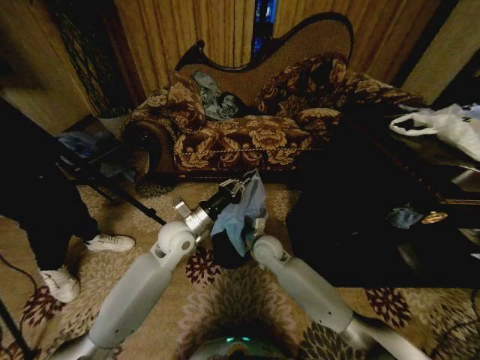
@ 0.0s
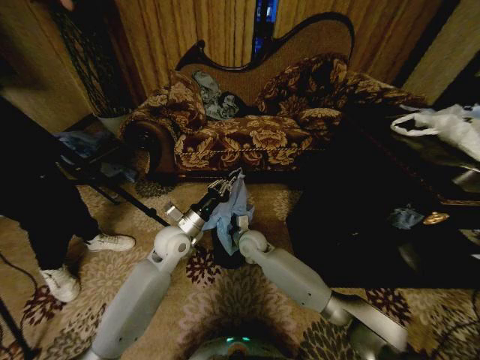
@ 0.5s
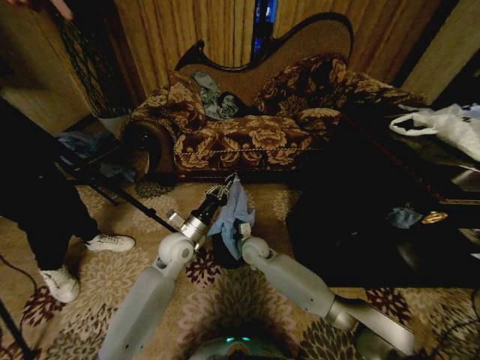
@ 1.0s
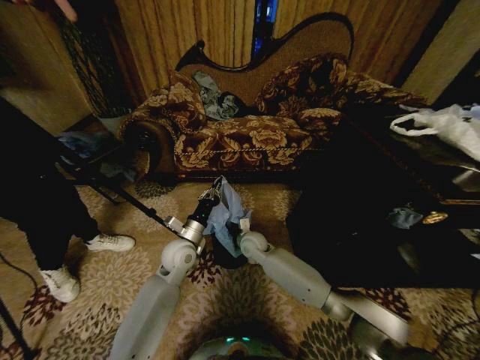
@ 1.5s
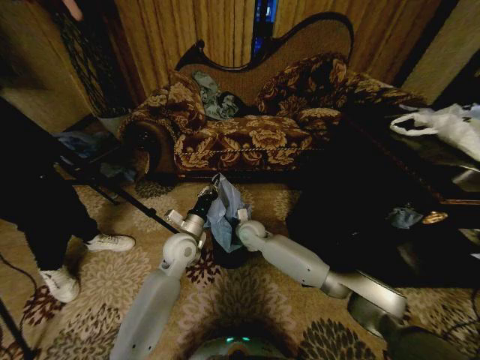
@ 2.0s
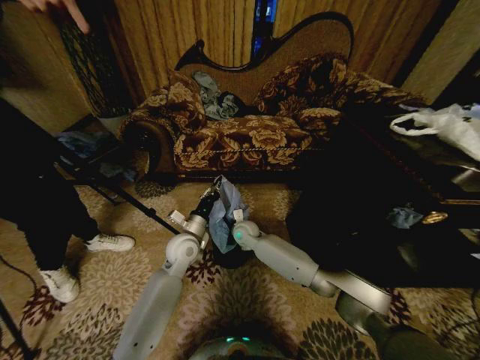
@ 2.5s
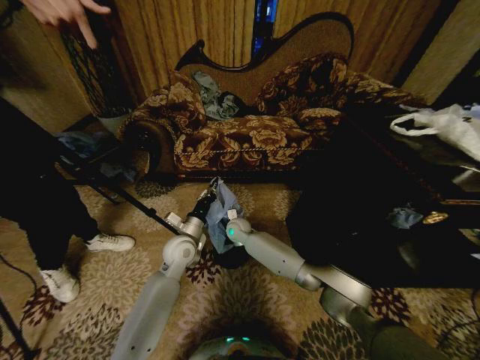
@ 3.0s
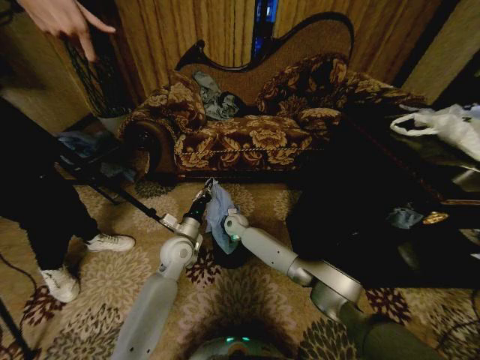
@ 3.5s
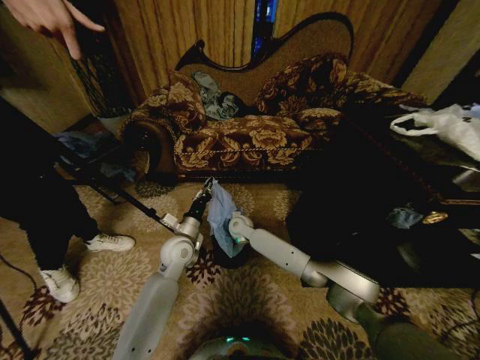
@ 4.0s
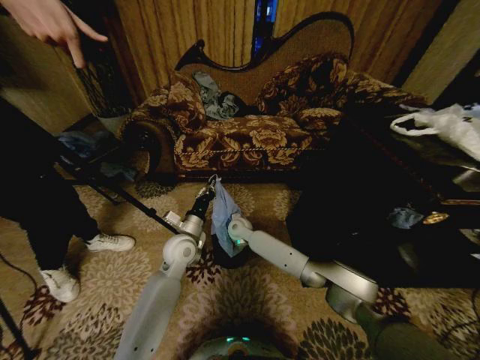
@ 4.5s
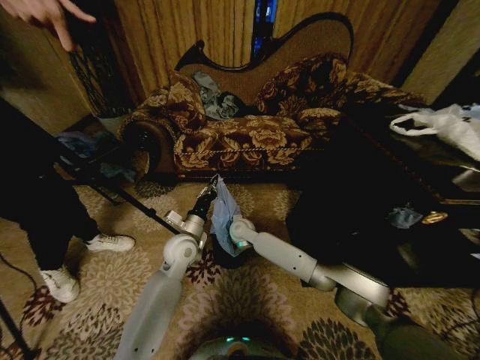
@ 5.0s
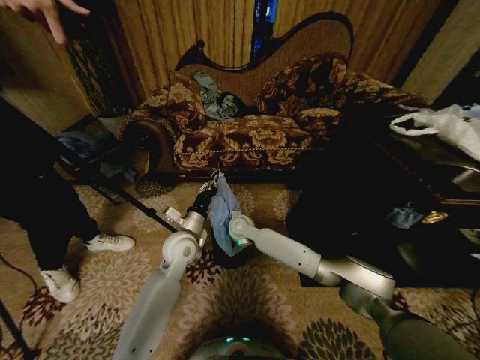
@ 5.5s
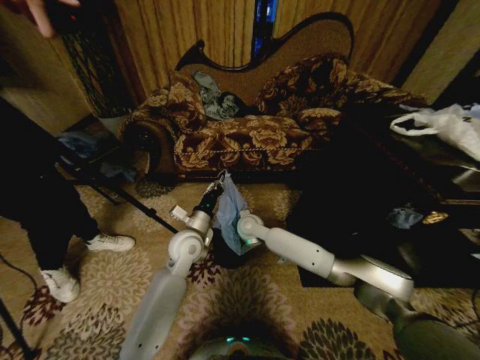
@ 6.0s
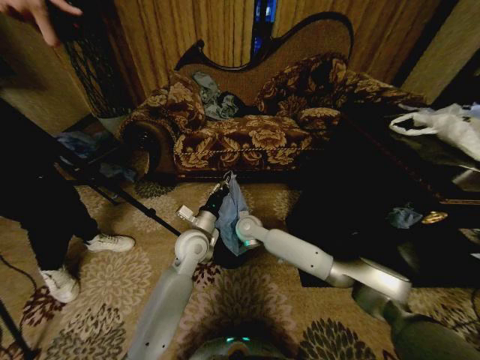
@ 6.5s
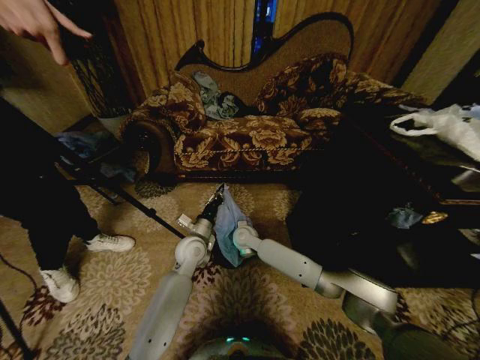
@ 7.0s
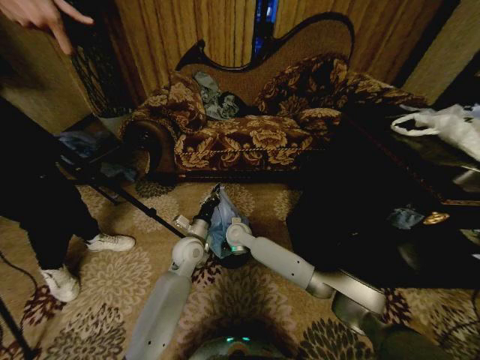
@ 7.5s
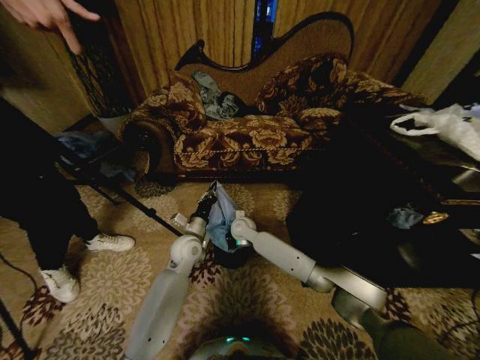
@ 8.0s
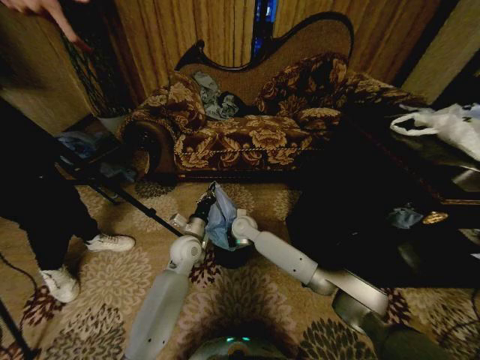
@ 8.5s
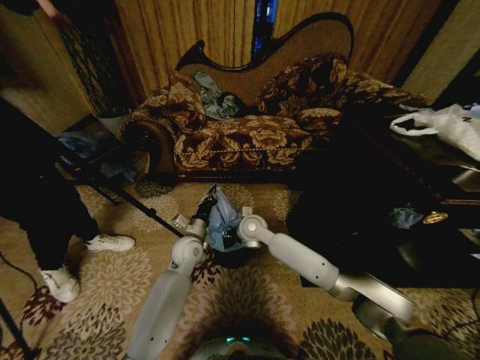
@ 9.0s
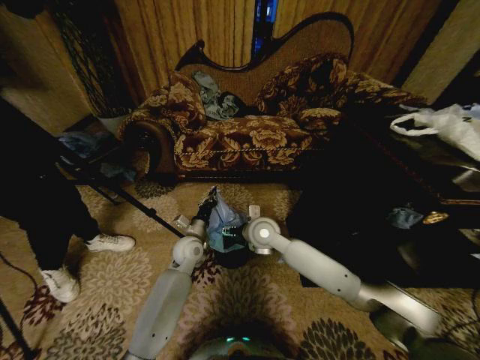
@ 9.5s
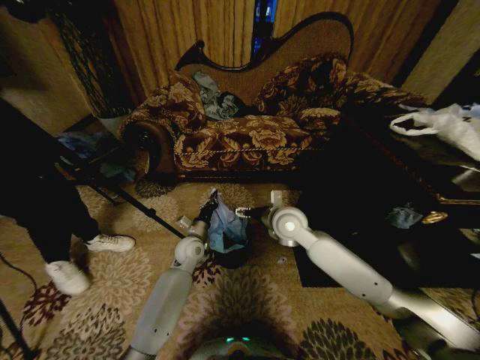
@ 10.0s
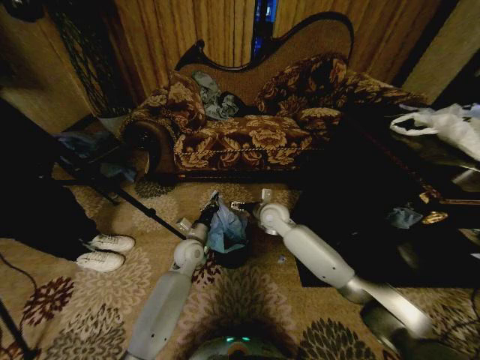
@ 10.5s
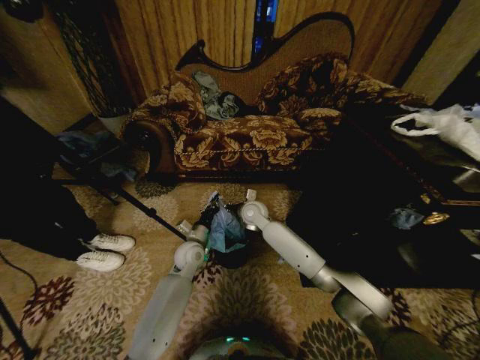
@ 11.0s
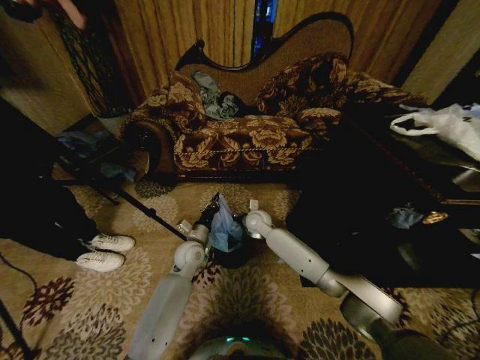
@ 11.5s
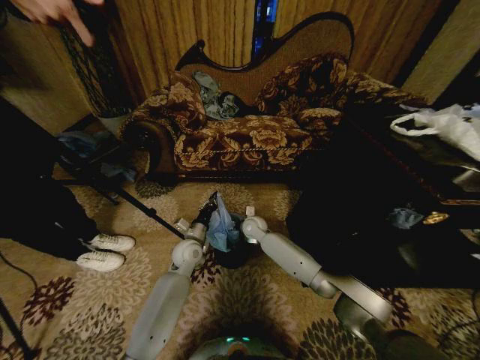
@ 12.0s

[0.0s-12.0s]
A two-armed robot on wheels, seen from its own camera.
Task of the whole recording: Place a garbage bag over the trash bin.
0.0s to 2.0s: The left gripper shifts some 5 cm downward. The right gripper travels forward by roughly 5 cm.
4.0s to 6.0s: The right gripper ends up about 5 cm from where it was.
6.0s to 8.0s: The right gripper ends up some 5 cm from where it was. The left gripper moves downward, approximately 5 cm.
8.0s to 10.0s: The right gripper is displaced upward, to the right and backward by approximately 20 cm, and opens its fingers.
10.0s to 12.0s: The right gripper goes roughly 20 cm downward, forward and to the left, and closes its fingers.

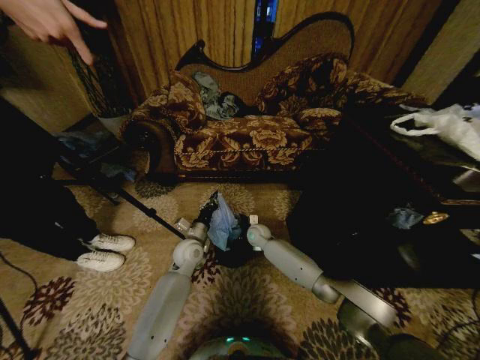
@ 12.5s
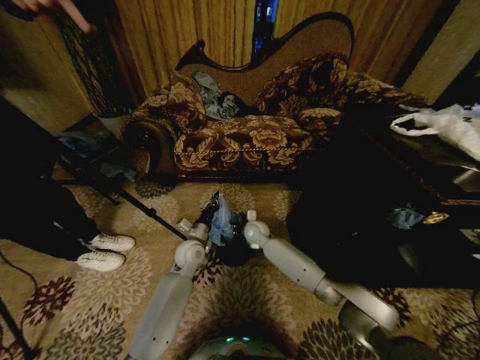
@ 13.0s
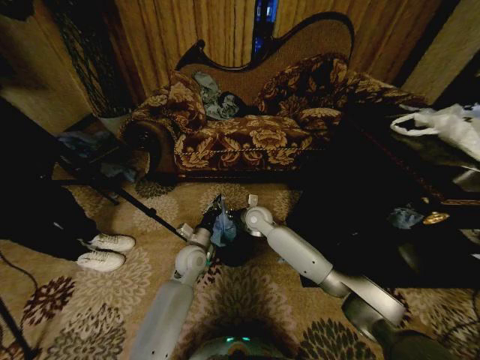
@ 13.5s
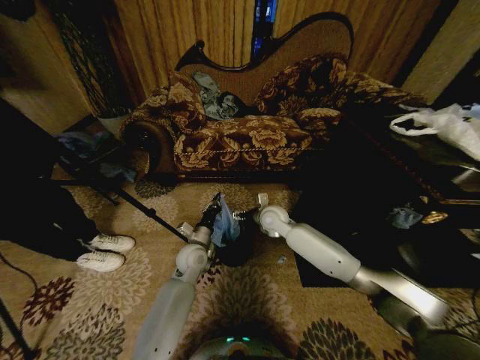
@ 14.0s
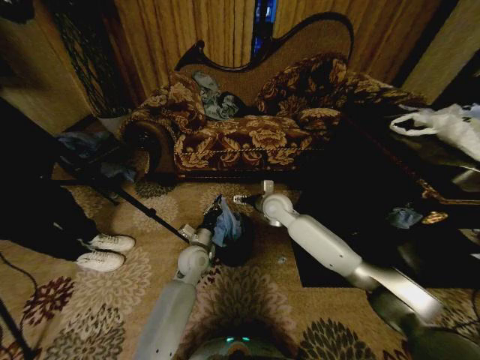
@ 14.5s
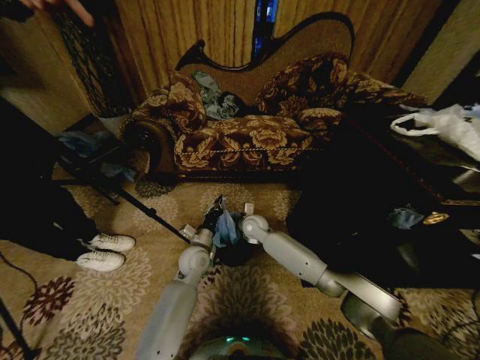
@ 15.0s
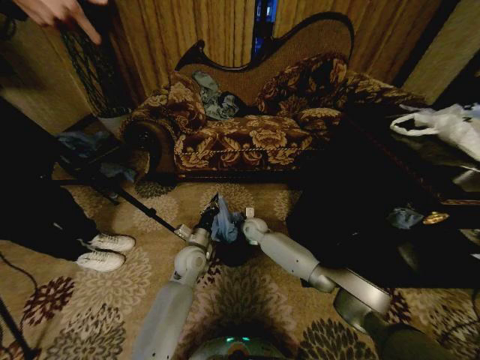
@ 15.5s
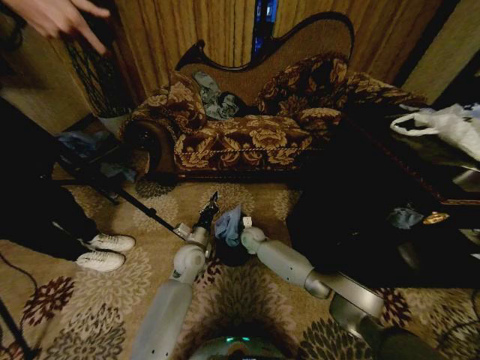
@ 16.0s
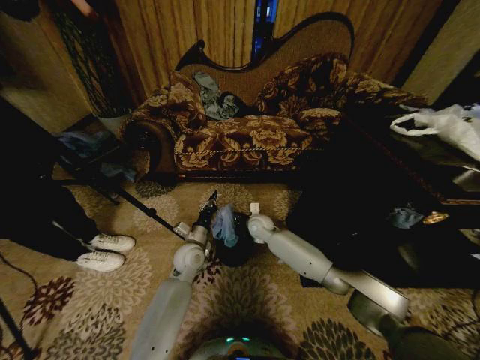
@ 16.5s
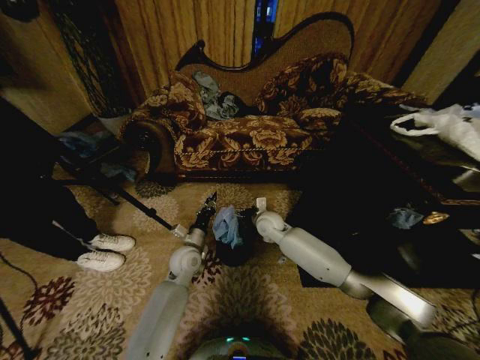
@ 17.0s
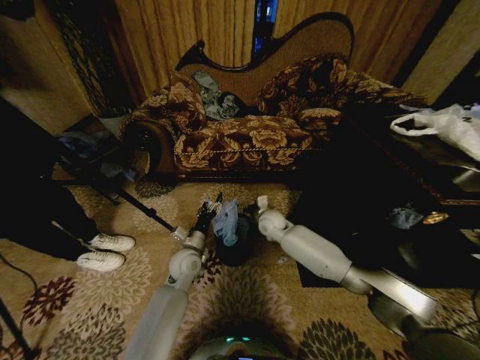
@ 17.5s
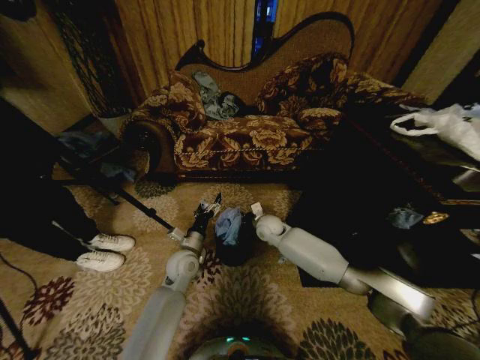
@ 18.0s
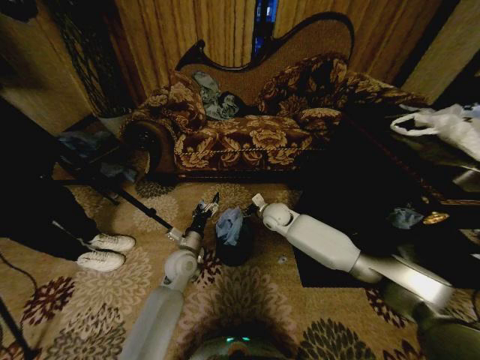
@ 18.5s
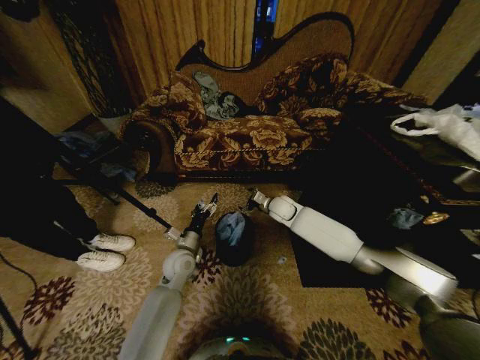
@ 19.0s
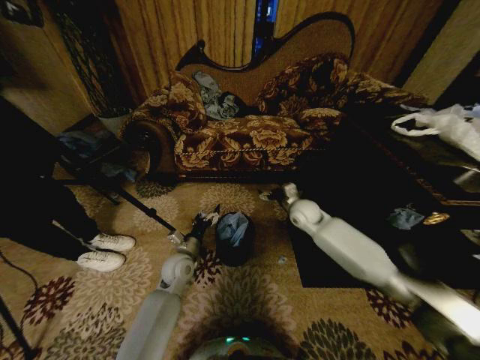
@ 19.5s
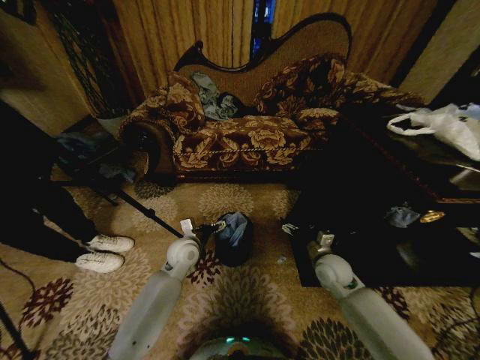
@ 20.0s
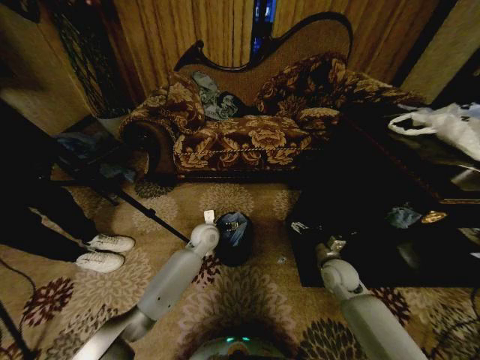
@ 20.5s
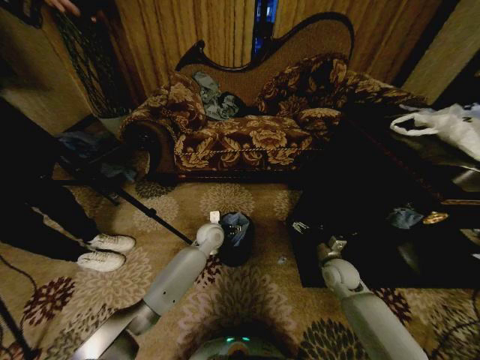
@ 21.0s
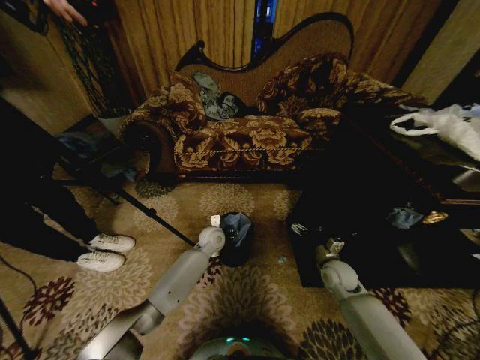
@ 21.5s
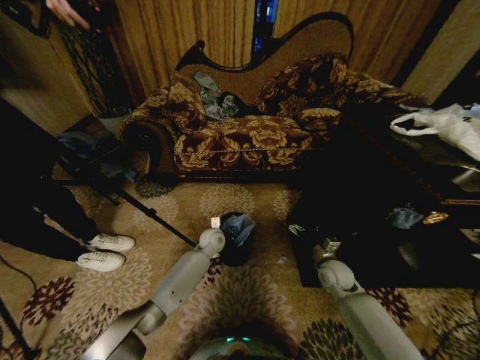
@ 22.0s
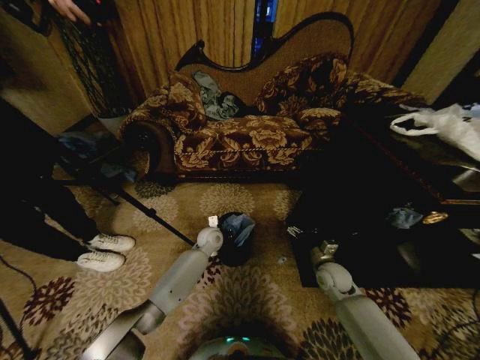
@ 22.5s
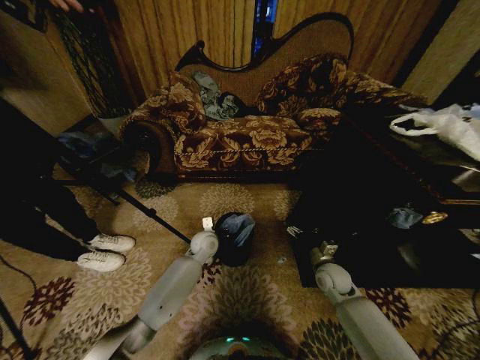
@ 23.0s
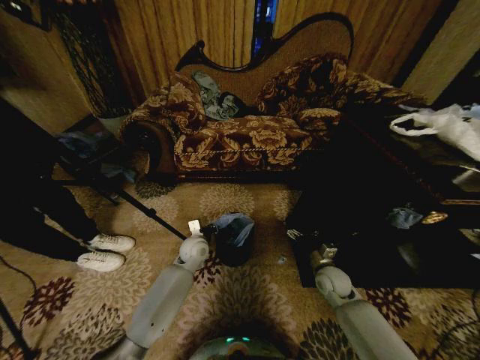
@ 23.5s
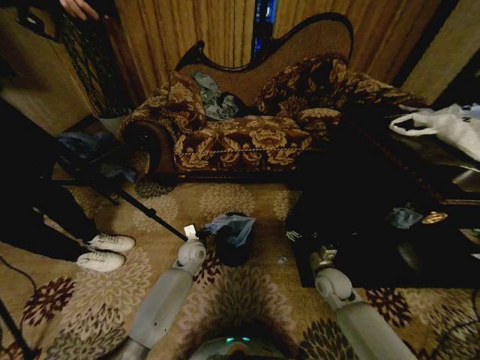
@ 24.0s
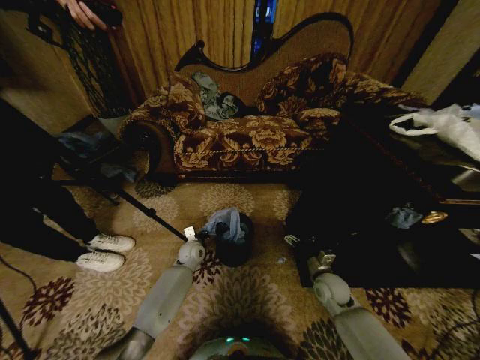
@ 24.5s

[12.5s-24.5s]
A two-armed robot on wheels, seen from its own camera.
Task of the whole recording: Place a garbage bag over the trash bin.
12.5s to 14.5s: The right gripper shifts roughly 15 cm upward, and opens.
14.5s to 16.5s: The right gripper shifts some 10 cm downward, and closes its fingers.
16.5s to 18.5s: The left gripper opens its fingers. Meanwhile the right gripper shifts about 5 cm upward, and opens up.
18.5s to 20.5s: The left gripper heads forward and to the right, covering approximately 10 cm, while the right gripper moves to the right, backward and downward, roughly 25 cm.
20.5s to 22.5s: The left gripper is displaced downward by about 5 cm, and closes up.
22.5s to 24.5s: The left gripper is displaced to the left by about 5 cm.

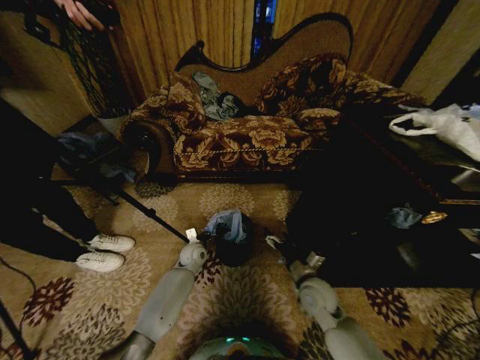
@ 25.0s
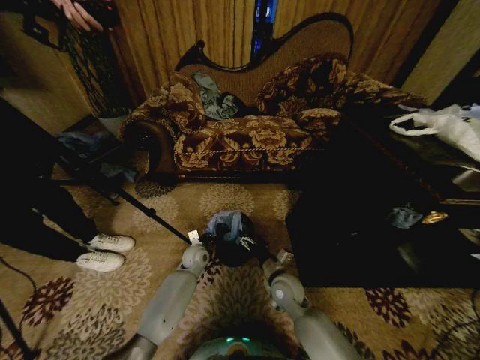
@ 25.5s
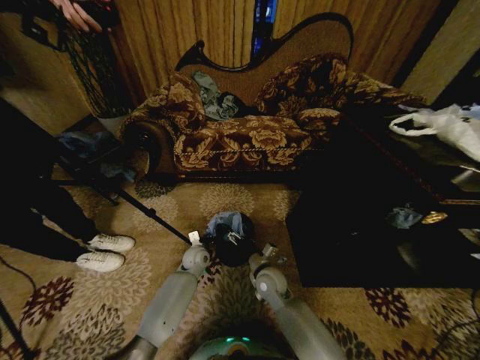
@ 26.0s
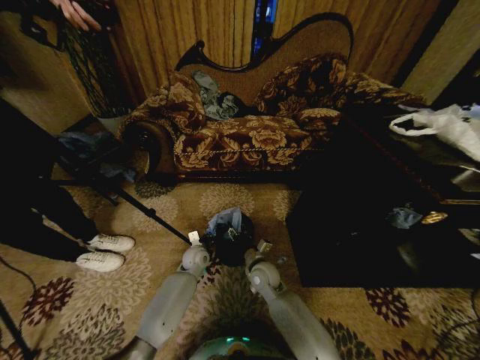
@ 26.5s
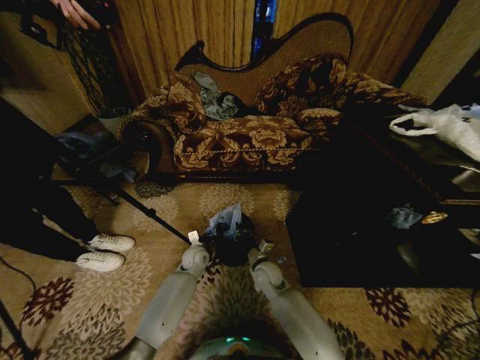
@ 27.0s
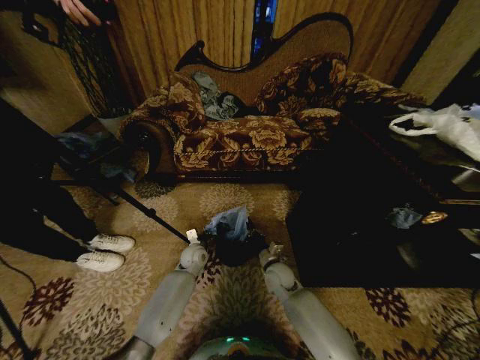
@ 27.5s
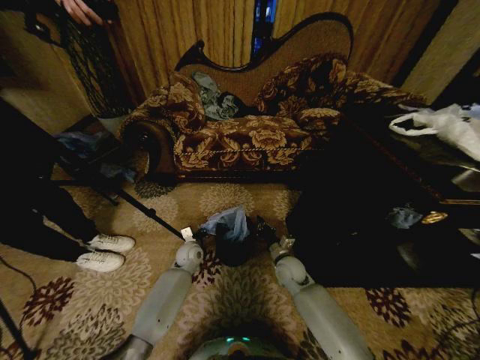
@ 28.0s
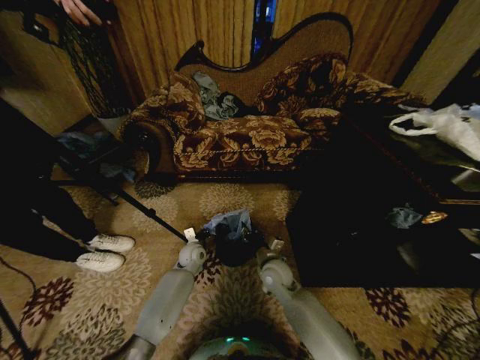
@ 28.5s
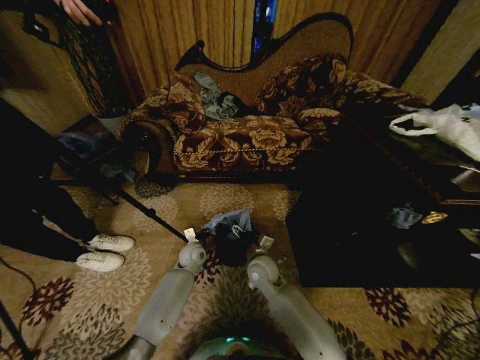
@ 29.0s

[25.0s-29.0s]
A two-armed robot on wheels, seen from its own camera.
Task of the whole recording: Place a garbage bag over the trash bin.
25.0s to 27.0s: The right gripper goes some 15 cm to the left and forward, and closes.
27.0s to 29.0s: The right gripper shifts about 5 cm upward, moves about 10 cm to the right and comes back, and opens.
